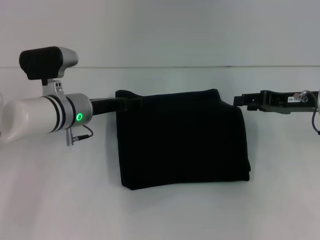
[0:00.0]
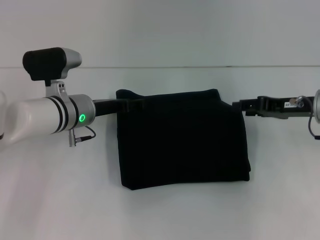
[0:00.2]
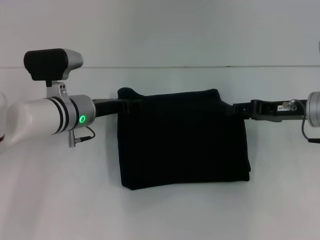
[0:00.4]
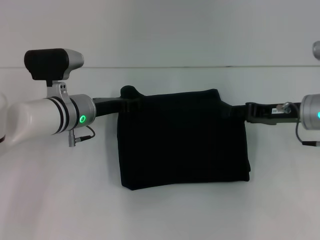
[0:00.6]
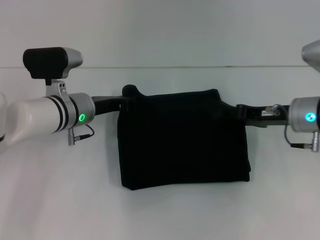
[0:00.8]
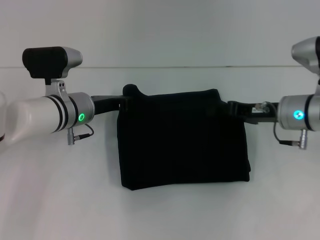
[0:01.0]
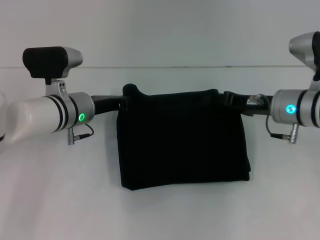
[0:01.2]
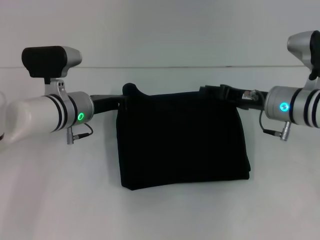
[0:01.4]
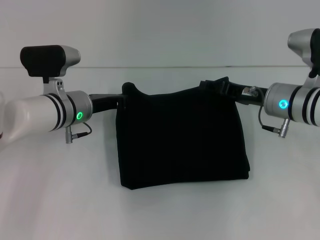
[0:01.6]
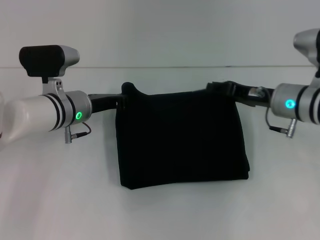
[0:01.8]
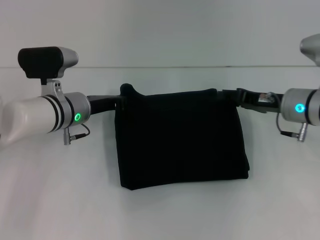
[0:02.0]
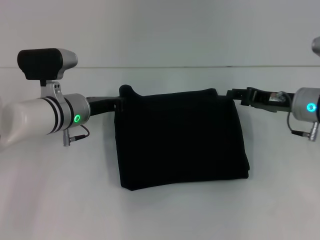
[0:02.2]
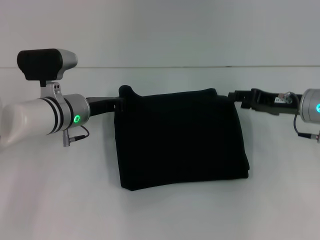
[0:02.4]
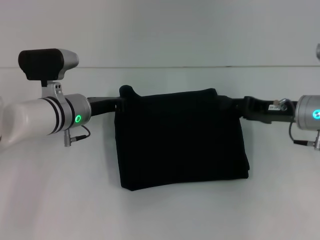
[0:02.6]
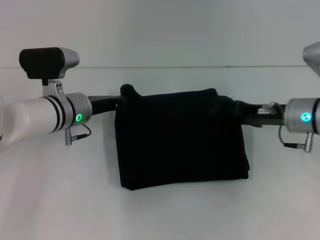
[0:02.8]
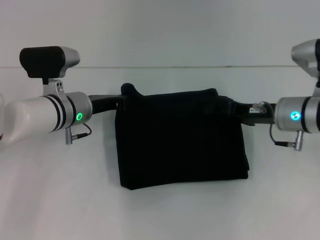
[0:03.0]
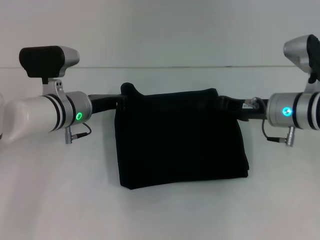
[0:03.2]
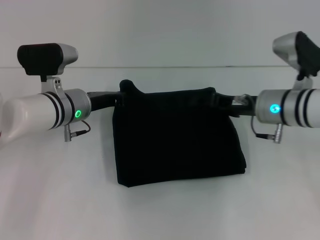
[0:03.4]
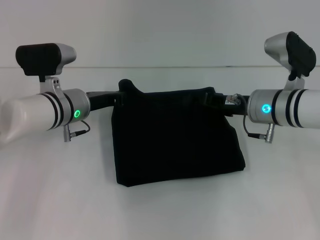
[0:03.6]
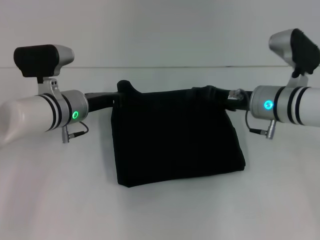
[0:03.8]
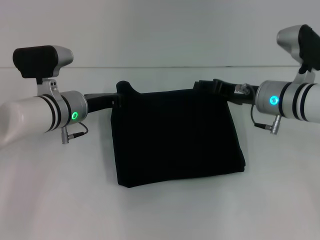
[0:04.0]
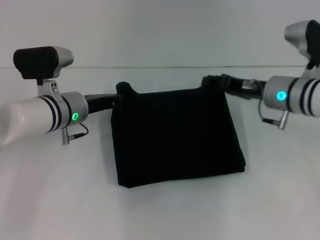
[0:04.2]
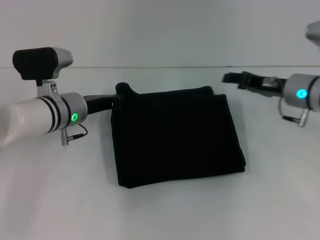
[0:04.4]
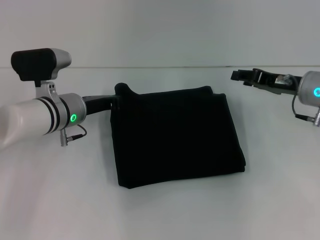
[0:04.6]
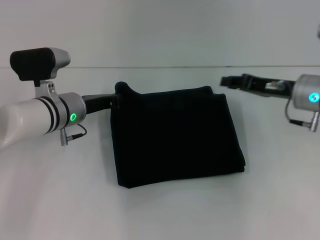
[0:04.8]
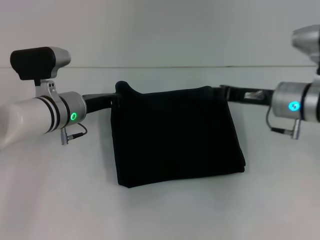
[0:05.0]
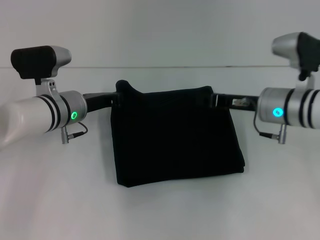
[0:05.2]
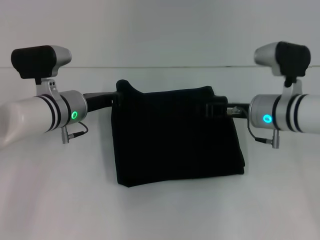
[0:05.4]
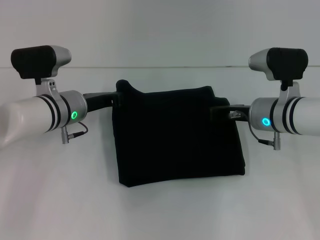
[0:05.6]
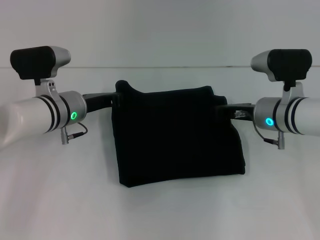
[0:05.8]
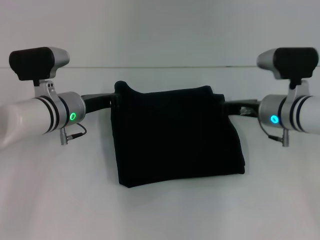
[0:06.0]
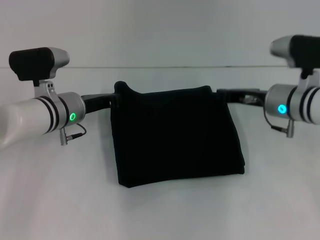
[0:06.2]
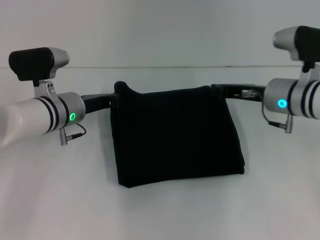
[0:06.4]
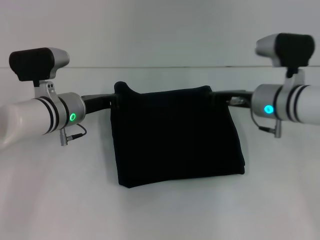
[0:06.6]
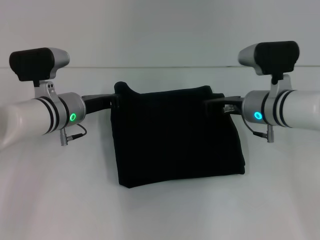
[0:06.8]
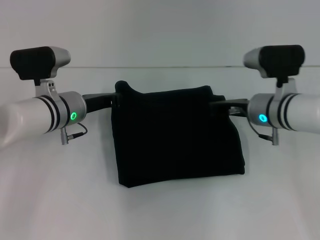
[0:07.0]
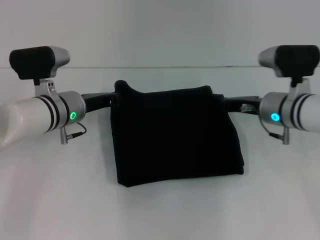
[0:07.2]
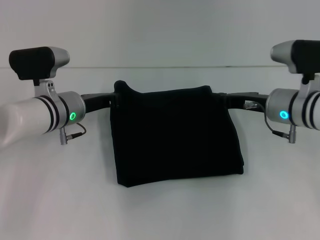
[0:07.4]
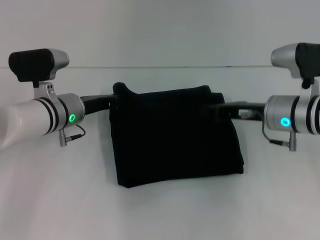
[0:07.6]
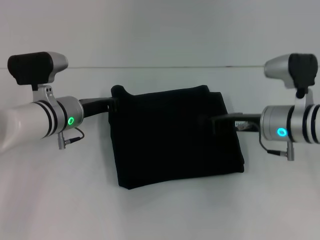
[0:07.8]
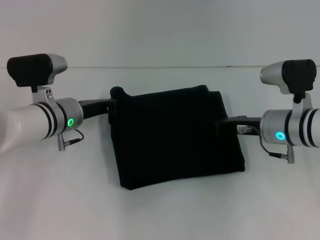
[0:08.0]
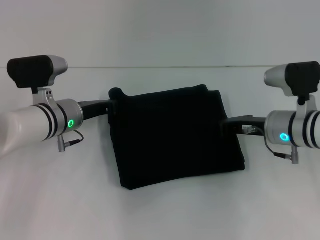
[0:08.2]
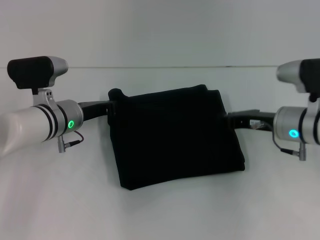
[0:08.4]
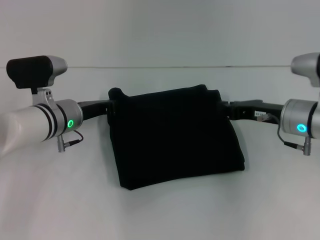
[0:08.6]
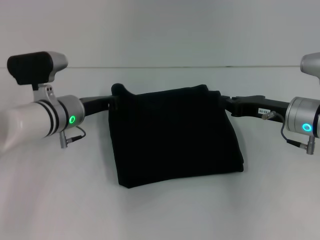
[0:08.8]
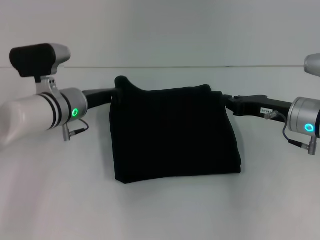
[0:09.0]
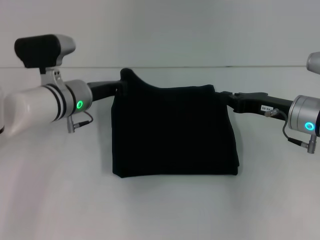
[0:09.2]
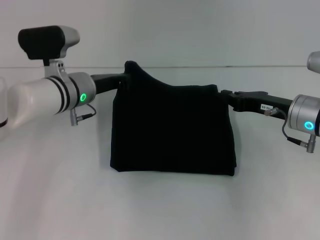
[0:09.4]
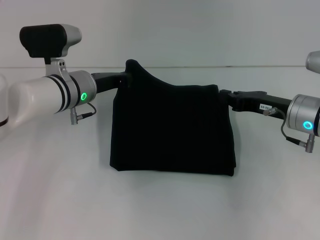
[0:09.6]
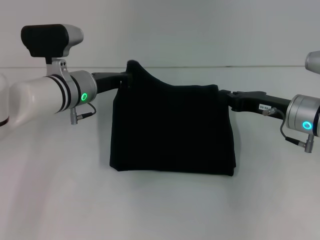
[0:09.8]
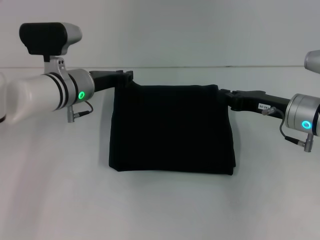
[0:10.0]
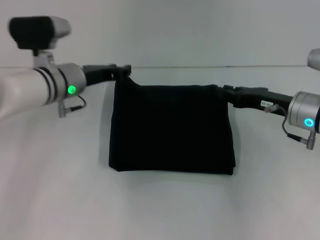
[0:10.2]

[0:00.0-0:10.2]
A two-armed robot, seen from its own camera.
0:00.0 to 0:01.4: The left gripper closes. Meanwhile the right gripper heads to the left, covering some 5 cm.
0:01.4 to 0:04.4: The grippers stay close to where they were, moving slightly.
0:04.4 to 0:05.8: The right gripper ends up some 5 cm from where it was, and closes its fingers.
0:05.8 to 0:08.8: The grippers make only small movements.
0:08.8 to 0:10.2: The left gripper shifts by some 5 cm.

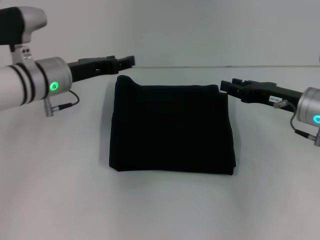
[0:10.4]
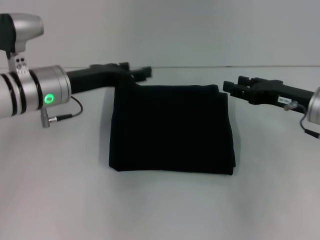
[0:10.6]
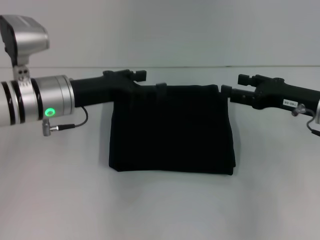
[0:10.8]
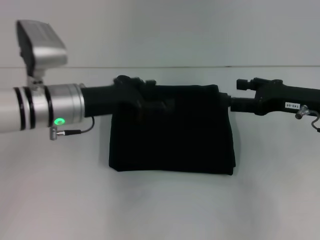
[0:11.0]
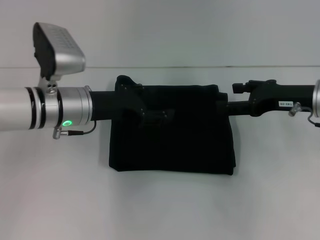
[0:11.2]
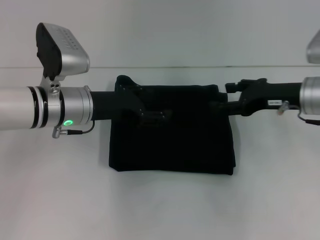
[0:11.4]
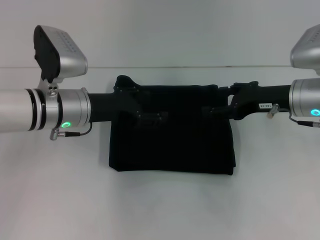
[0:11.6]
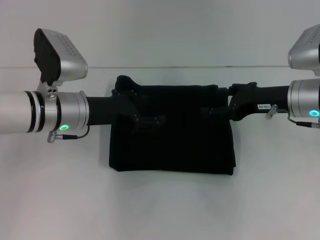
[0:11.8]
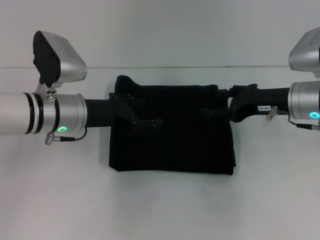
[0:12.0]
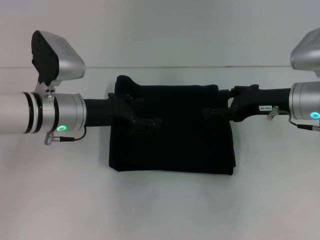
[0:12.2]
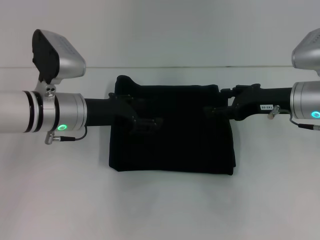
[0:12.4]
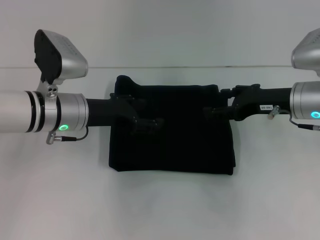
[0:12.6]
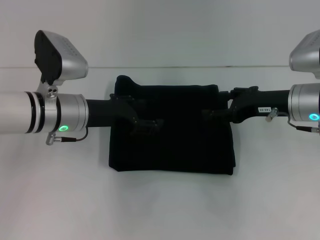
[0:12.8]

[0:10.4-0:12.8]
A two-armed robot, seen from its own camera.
0:10.4 to 0:11.6: The right gripper opens its fingers.
0:11.6 to 0:12.8: Both grippers stay put.
